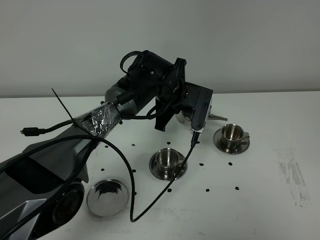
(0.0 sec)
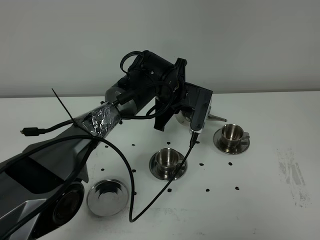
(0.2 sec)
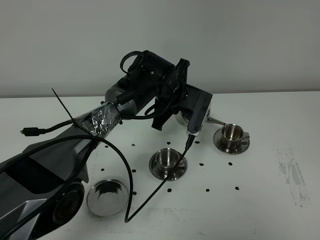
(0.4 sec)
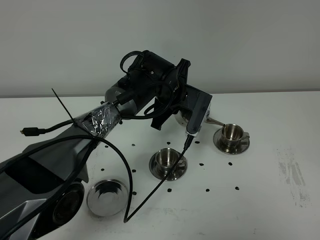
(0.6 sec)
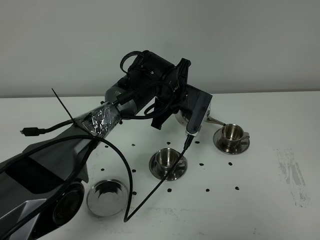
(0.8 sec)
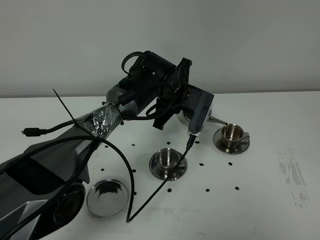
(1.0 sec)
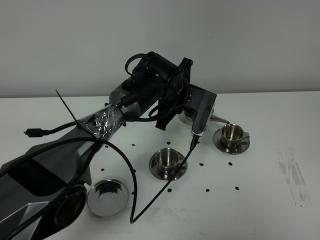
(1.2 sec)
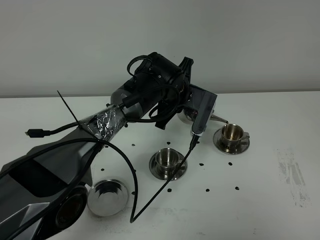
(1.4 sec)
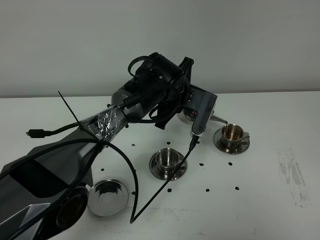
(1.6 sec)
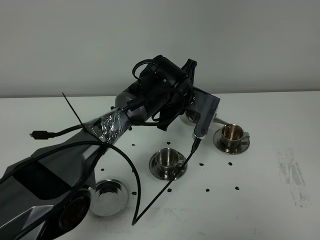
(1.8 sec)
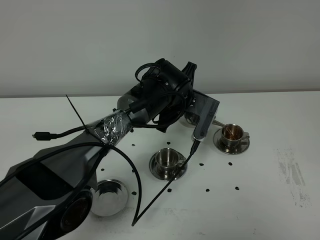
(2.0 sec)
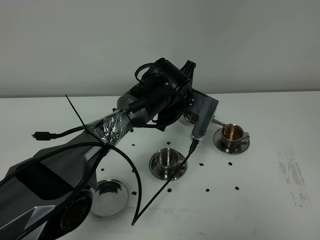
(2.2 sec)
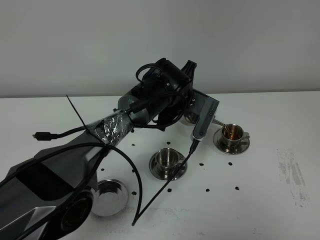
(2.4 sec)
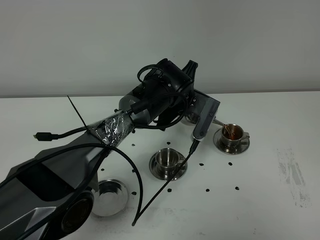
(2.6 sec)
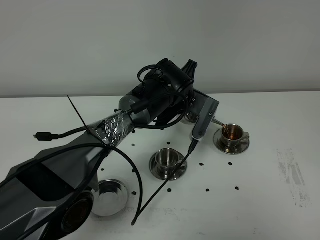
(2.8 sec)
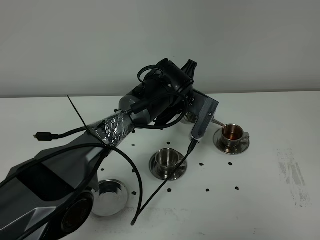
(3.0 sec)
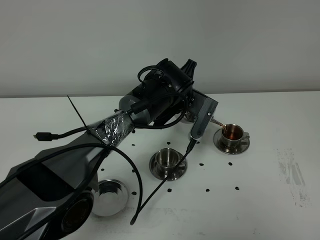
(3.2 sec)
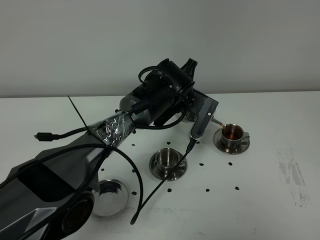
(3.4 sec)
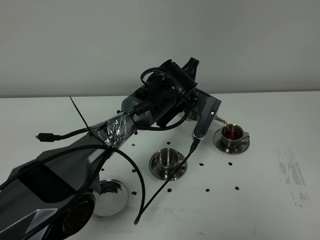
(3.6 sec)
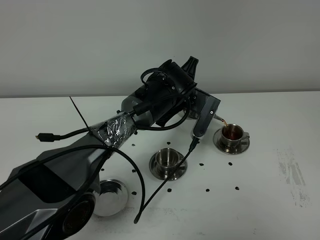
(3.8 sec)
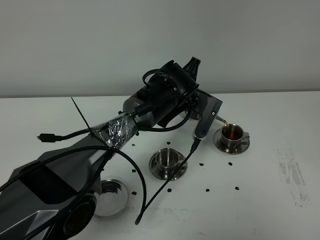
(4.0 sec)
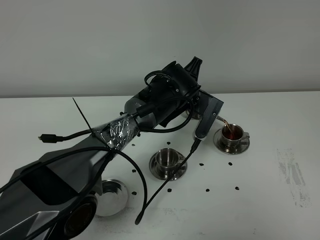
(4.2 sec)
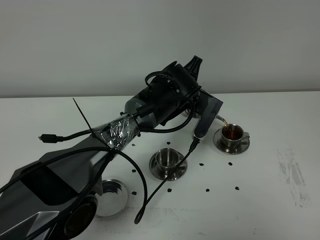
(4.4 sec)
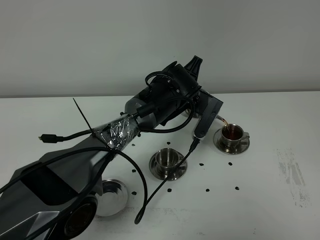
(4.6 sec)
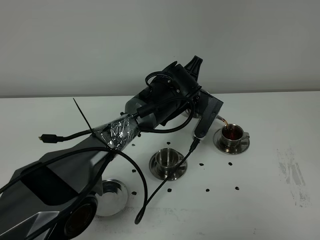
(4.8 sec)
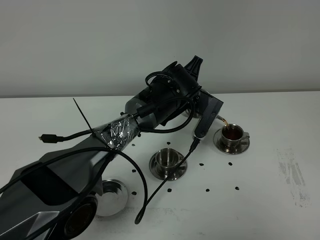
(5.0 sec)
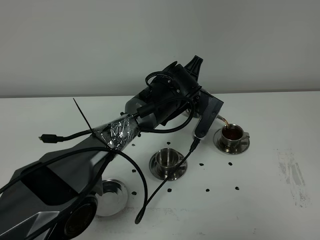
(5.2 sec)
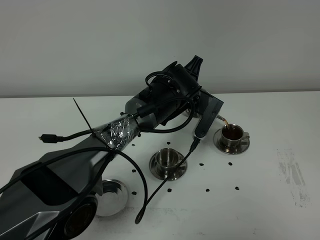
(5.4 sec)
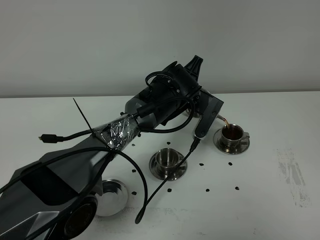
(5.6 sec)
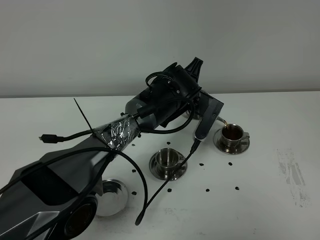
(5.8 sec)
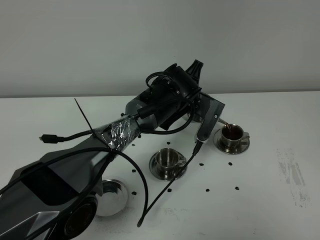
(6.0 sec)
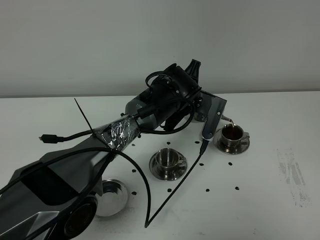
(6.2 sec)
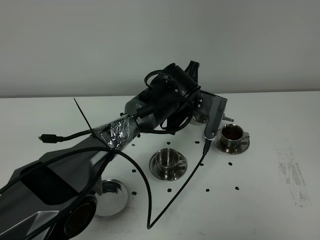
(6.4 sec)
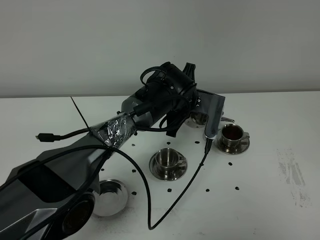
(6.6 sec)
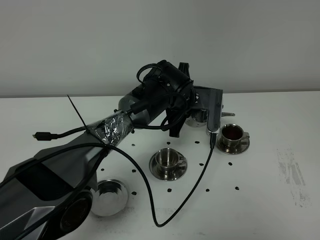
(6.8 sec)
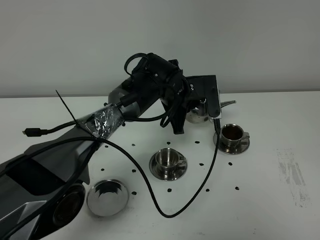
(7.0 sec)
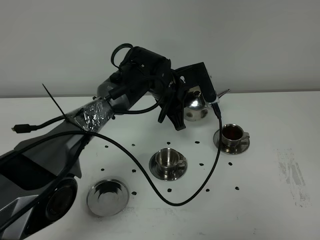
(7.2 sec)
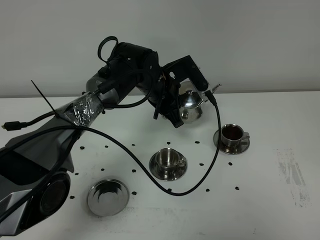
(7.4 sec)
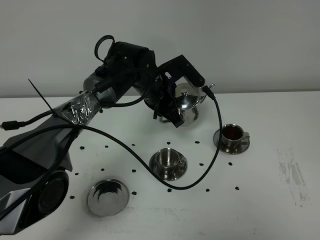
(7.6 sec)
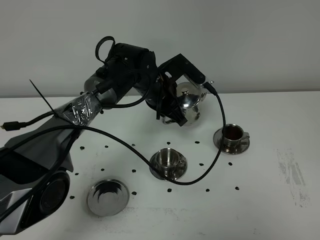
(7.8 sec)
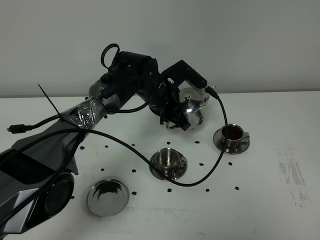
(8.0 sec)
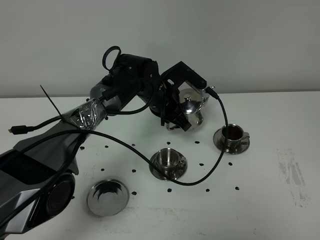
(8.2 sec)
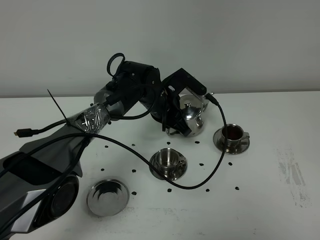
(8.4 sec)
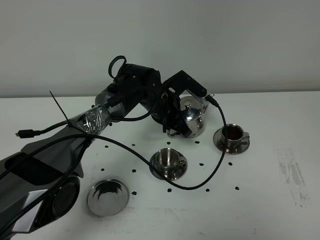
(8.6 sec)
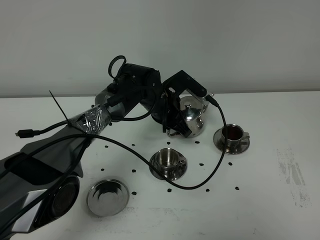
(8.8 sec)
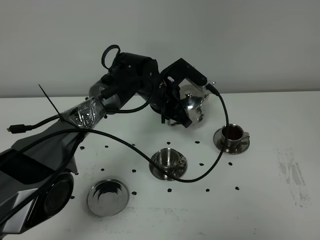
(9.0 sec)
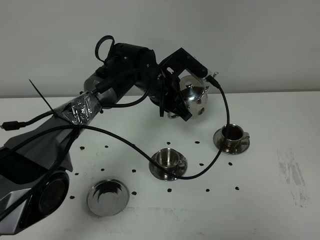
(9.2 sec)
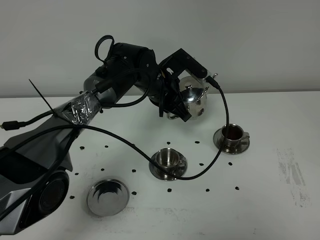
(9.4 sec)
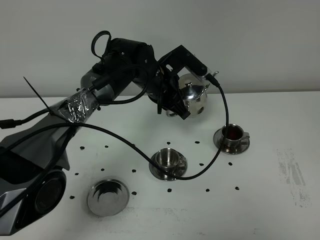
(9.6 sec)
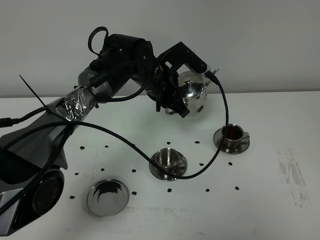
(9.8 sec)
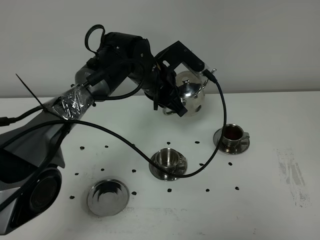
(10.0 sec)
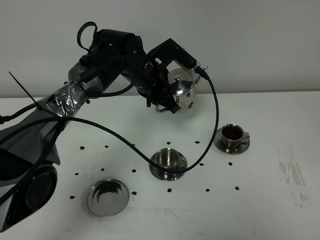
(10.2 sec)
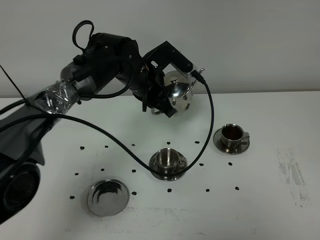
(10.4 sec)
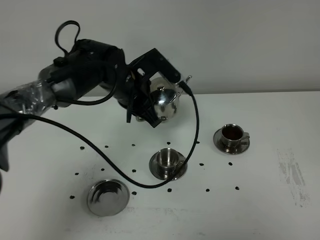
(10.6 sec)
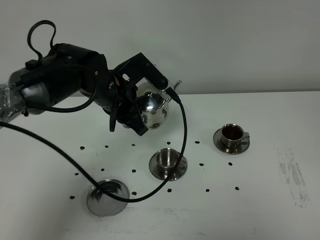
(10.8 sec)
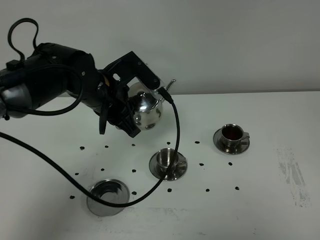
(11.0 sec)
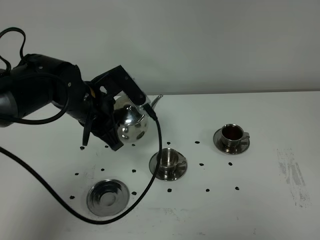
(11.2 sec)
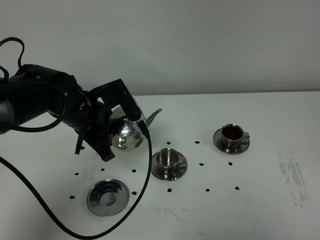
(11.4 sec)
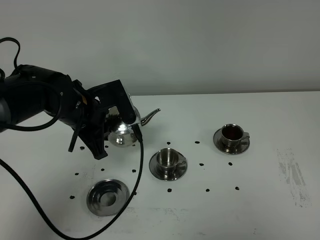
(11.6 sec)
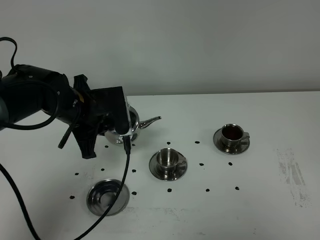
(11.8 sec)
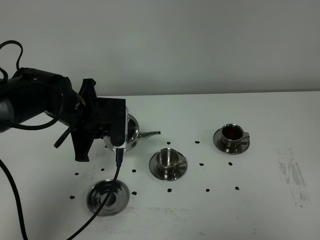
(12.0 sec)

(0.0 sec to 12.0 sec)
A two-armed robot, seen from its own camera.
Task of the whole recording: grasp the stainless steel teapot and pour the tea into the two stainless steel teacups one by one, put the stainless steel teapot back in its original place.
Step, 0.0 sec - 6.4 sec: Pour tea into the teacup with the left gripper.
0.0 sec - 4.4 sec: There are only small adjustments of the grippers.
4.4 sec - 6.0 sec: The two grippers keep their place.
6.0 sec - 7.6 sec: The left gripper is displaced to the left by some 5 cm.
7.6 sec - 9.0 sec: There are only small adjustments of the grippers.
9.0 sec - 10.4 sec: The left gripper changes place by roughly 5 cm.
10.4 sec - 12.0 sec: The left gripper goes about 15 cm to the left and backward.

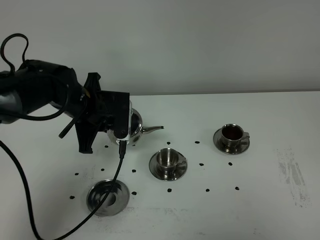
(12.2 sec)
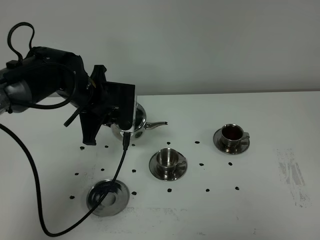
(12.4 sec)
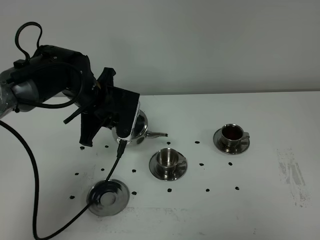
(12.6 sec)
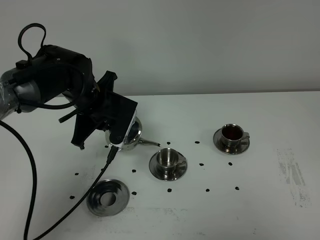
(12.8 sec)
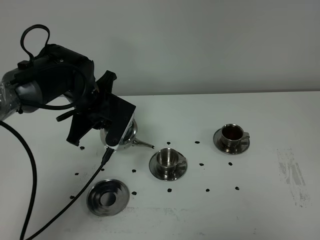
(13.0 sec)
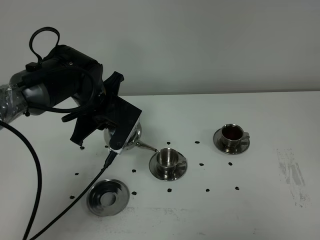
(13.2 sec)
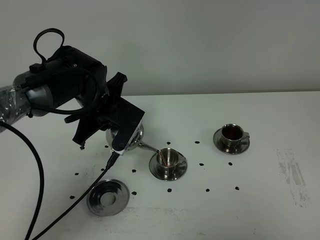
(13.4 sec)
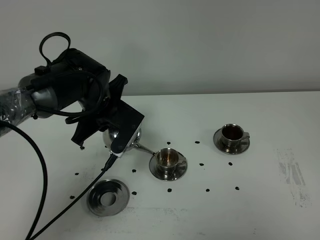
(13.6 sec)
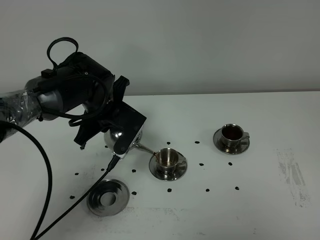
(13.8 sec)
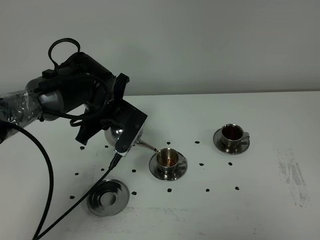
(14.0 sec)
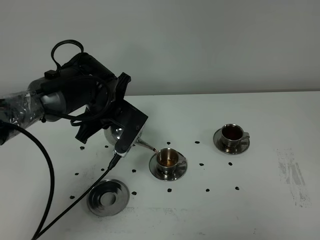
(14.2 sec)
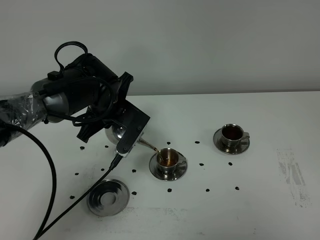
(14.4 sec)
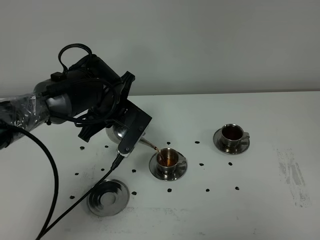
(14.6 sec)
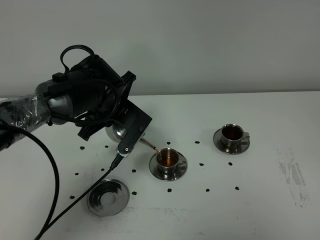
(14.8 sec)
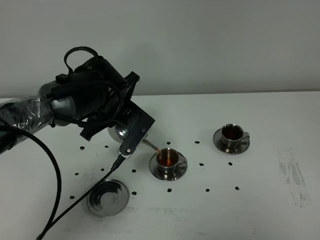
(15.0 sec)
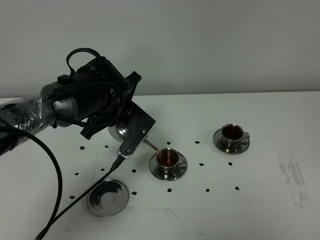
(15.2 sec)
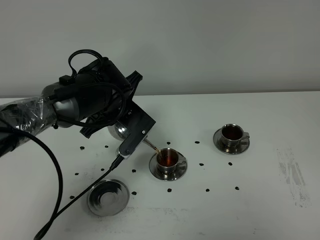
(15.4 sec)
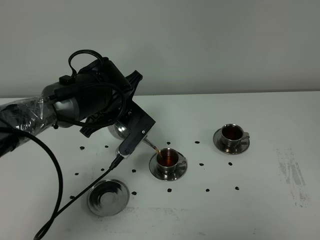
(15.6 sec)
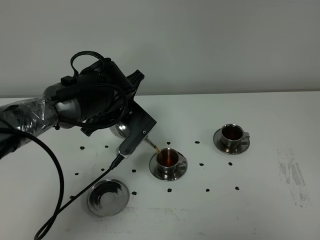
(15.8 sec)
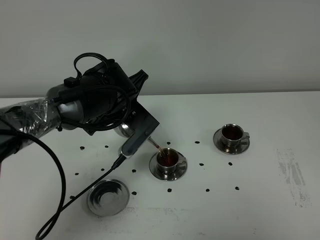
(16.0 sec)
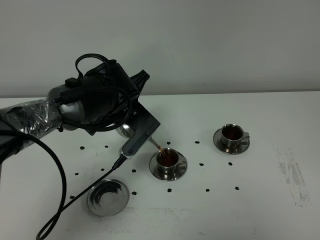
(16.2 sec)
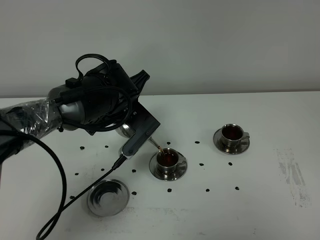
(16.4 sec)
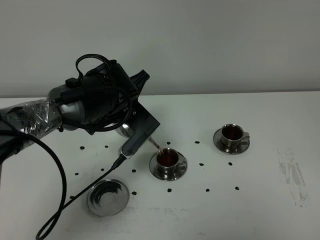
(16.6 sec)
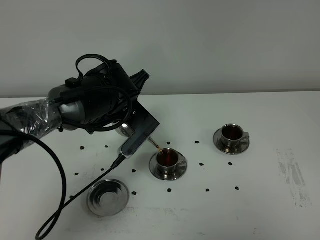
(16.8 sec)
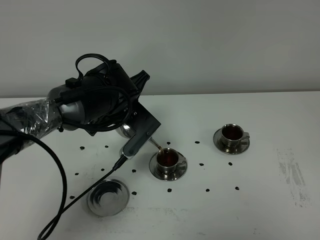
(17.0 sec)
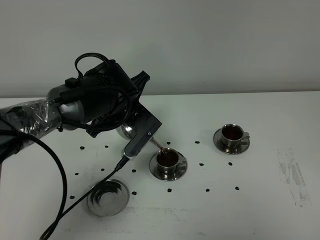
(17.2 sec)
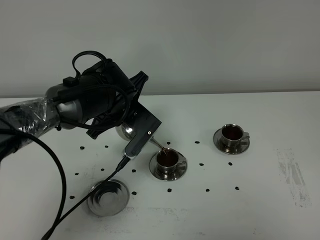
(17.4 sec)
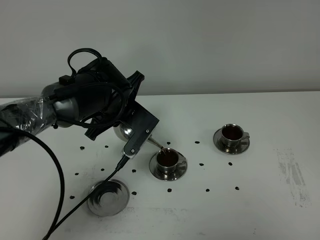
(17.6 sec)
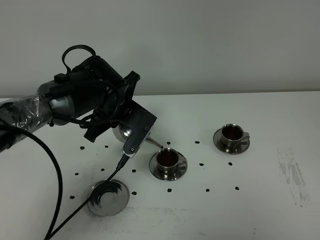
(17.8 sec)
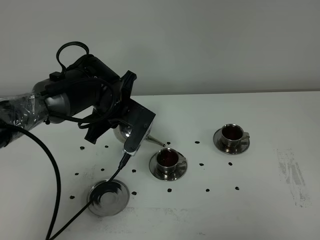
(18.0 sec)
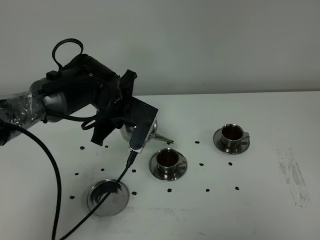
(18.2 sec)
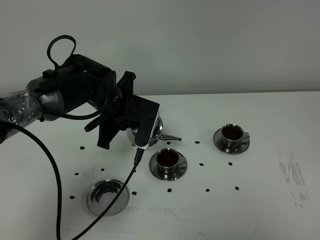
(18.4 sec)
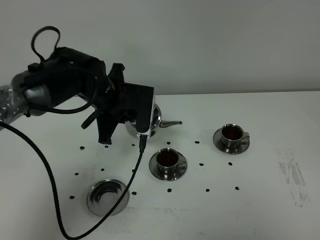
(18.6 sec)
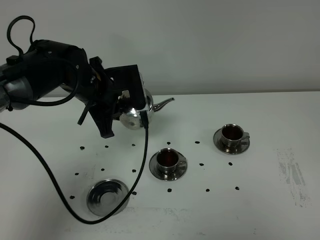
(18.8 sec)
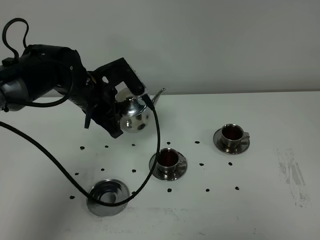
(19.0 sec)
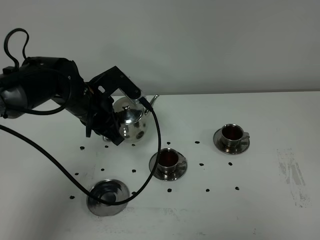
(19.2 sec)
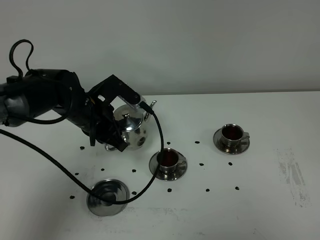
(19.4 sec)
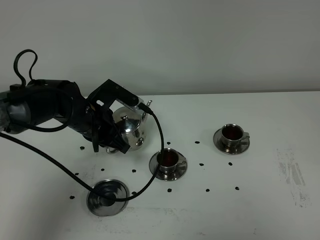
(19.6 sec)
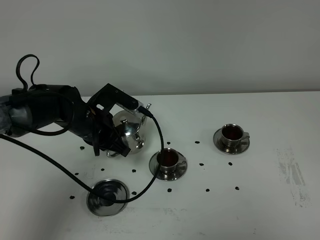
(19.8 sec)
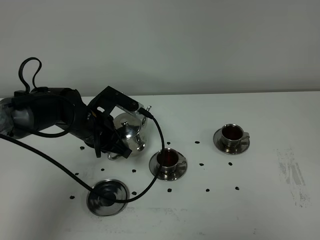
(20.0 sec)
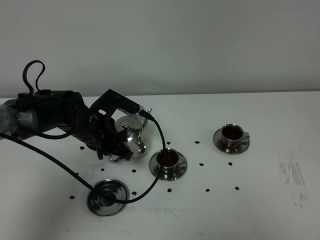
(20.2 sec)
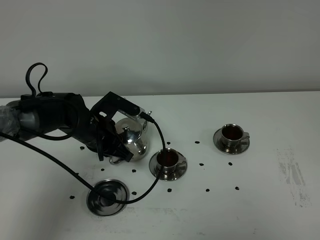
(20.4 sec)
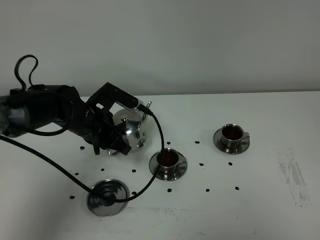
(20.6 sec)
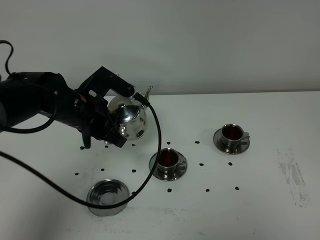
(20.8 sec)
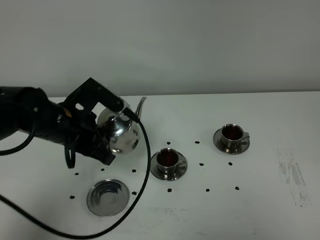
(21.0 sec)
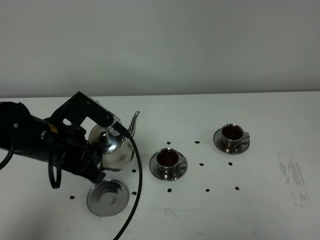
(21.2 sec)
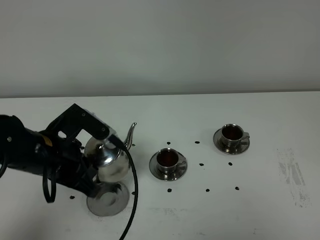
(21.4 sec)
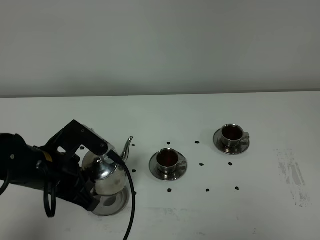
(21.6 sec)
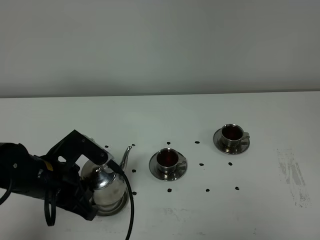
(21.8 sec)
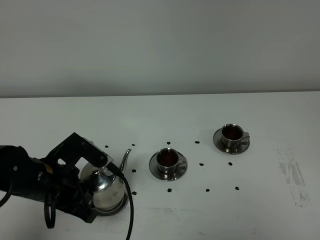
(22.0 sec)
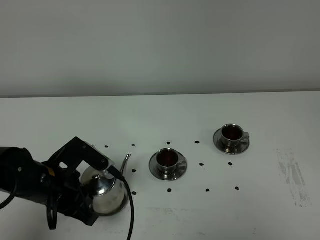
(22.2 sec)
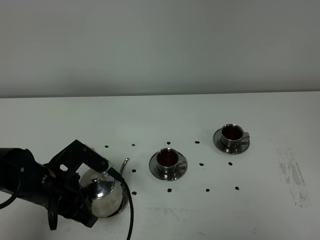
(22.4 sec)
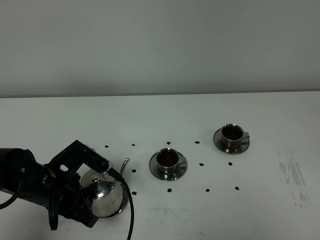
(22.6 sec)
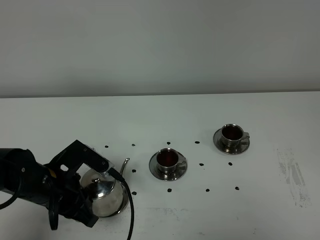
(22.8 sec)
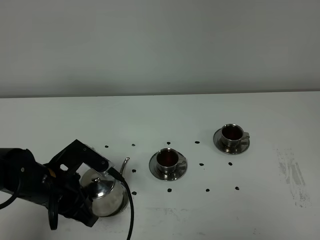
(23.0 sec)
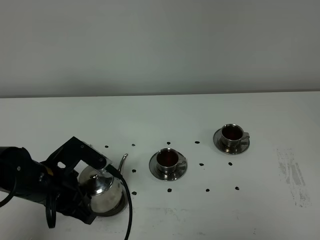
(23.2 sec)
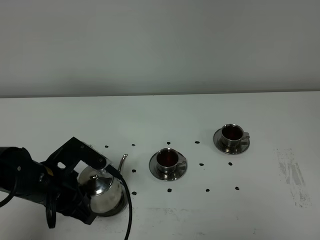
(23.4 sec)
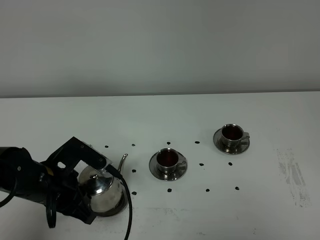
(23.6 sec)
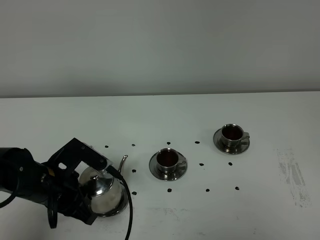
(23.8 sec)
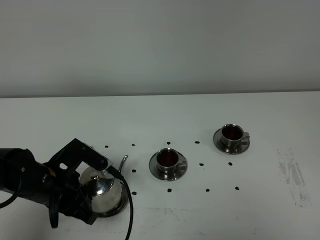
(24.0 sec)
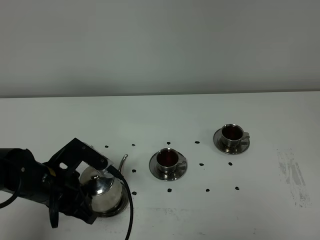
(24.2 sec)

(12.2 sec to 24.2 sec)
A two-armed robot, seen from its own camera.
Task of the whole recording: grasp the stainless steel teapot and pour the tea into the two stainless steel teacups one by one, put the stainless steel teapot back in its original place.
Step, 12.2 sec - 18.0 sec: Pour tea into the teacup with the left gripper.
13.8 sec - 16.6 sec: The grippers stay close to where they were, moving slightly.
18.2 sec - 19.8 sec: The left gripper goes roughly 5 cm to the left.
19.8 sec - 21.2 sec: The left gripper is displaced backward and upward by roughly 10 cm.
21.2 sec - 22.6 sec: The left gripper shifts approximately 5 cm downward.
22.6 sec - 24.2 sec: Both grippers stay put.
